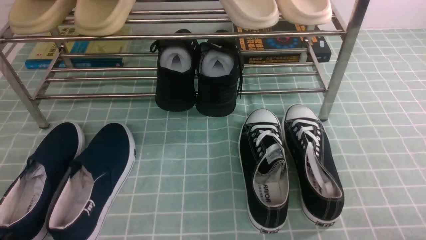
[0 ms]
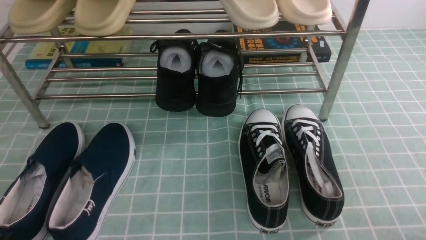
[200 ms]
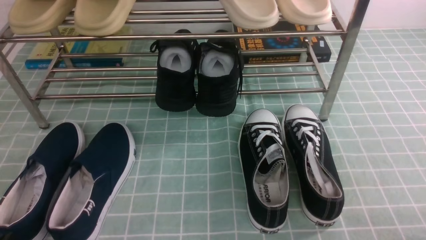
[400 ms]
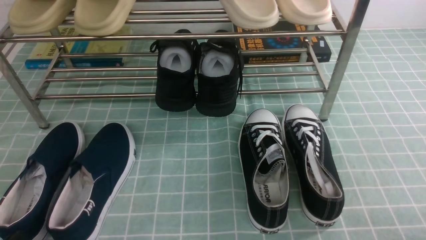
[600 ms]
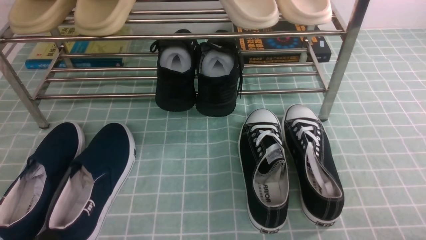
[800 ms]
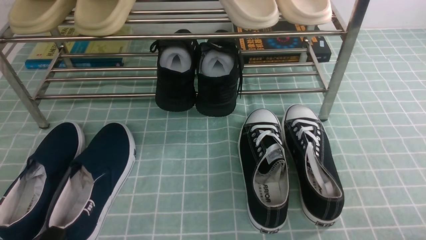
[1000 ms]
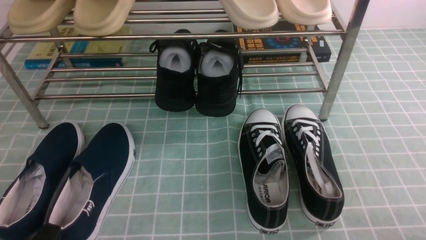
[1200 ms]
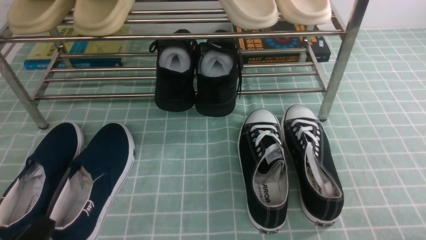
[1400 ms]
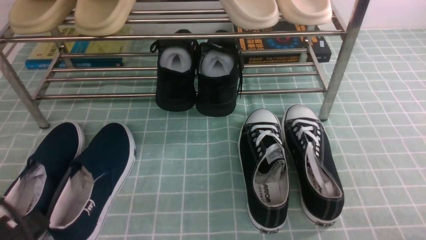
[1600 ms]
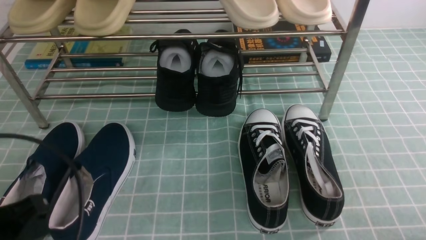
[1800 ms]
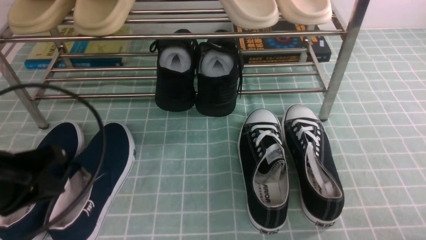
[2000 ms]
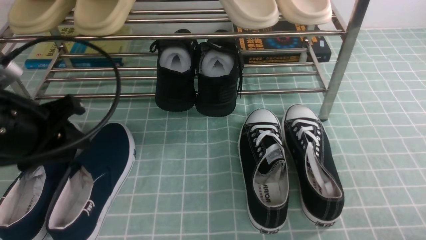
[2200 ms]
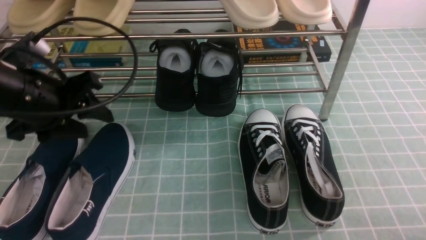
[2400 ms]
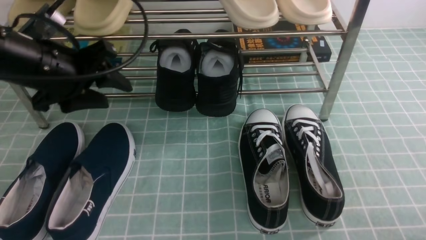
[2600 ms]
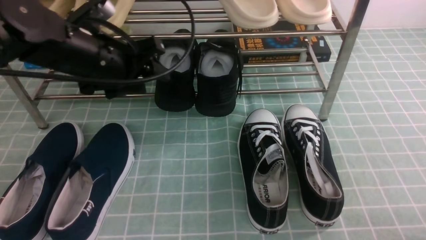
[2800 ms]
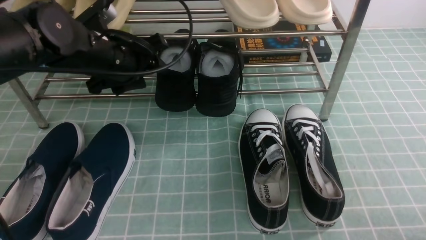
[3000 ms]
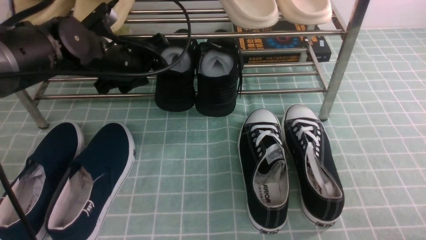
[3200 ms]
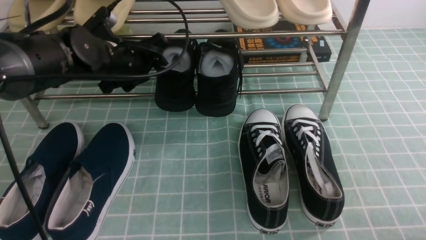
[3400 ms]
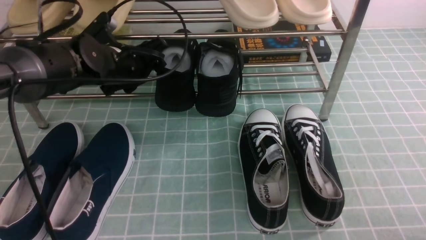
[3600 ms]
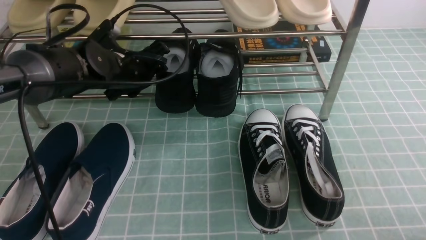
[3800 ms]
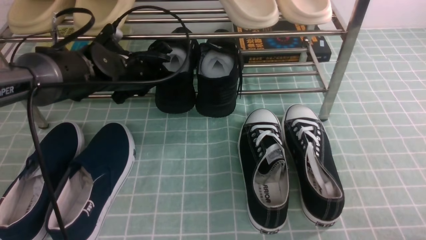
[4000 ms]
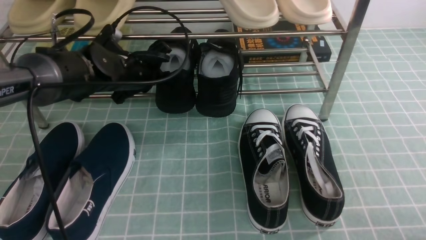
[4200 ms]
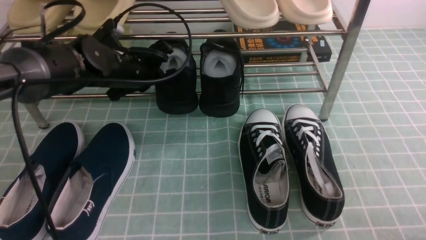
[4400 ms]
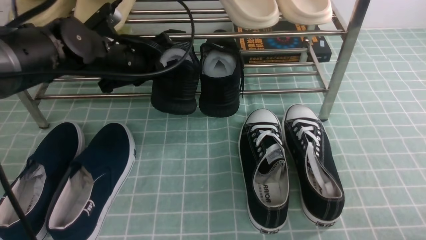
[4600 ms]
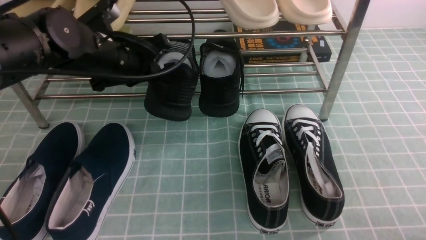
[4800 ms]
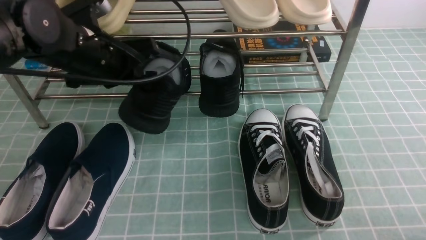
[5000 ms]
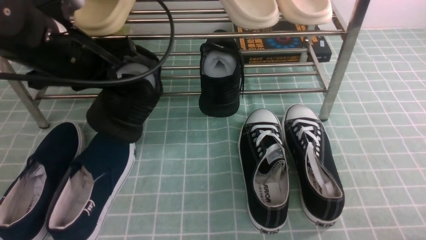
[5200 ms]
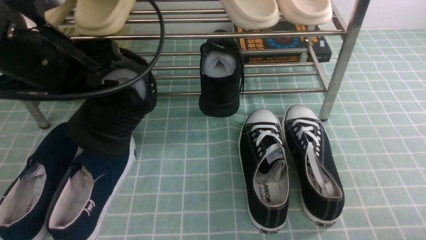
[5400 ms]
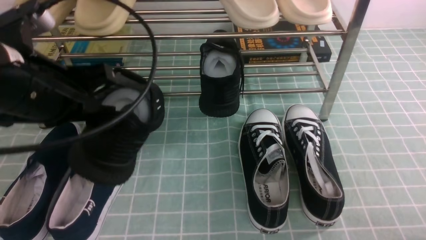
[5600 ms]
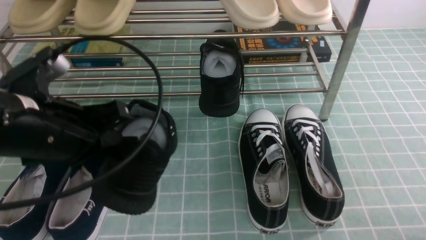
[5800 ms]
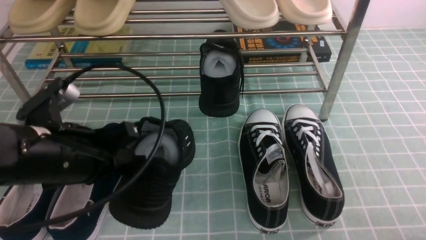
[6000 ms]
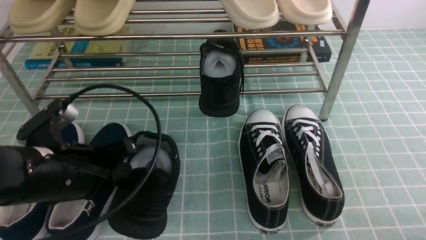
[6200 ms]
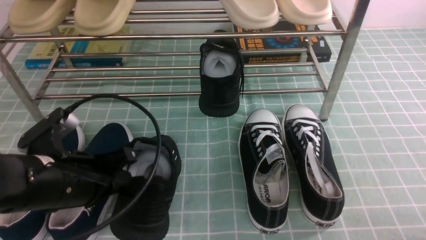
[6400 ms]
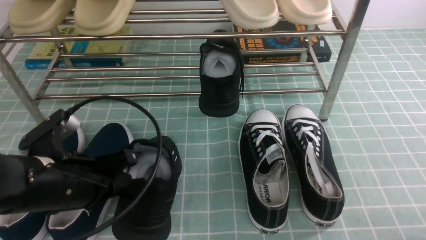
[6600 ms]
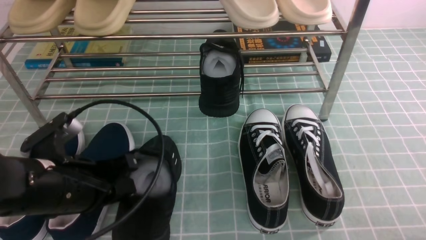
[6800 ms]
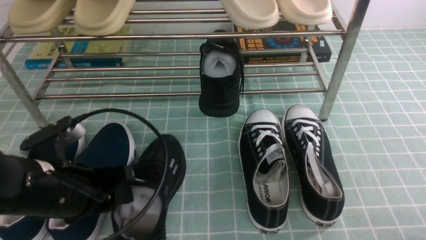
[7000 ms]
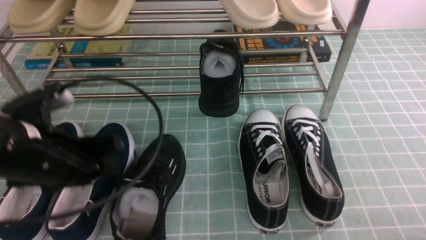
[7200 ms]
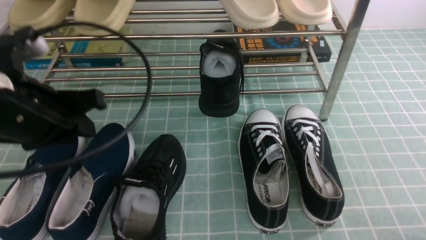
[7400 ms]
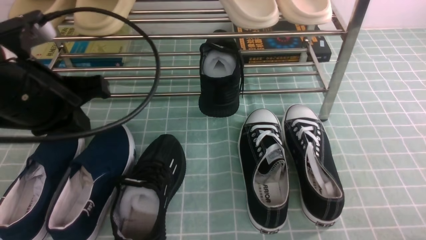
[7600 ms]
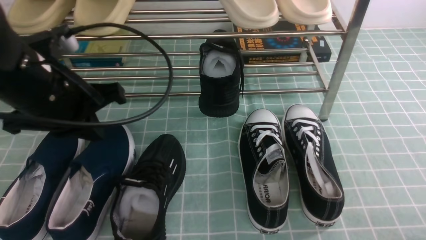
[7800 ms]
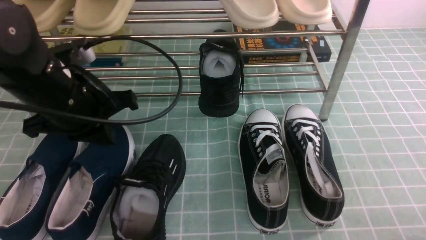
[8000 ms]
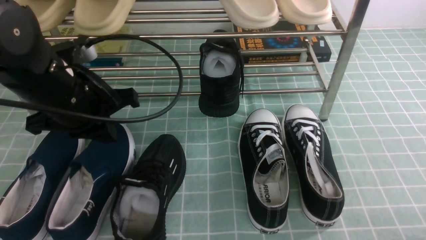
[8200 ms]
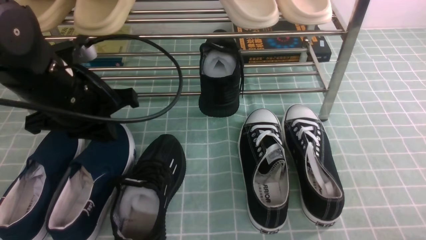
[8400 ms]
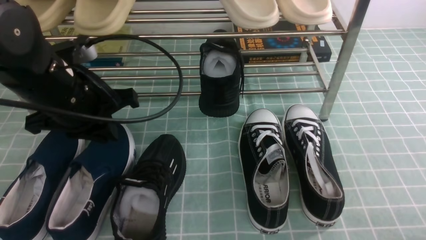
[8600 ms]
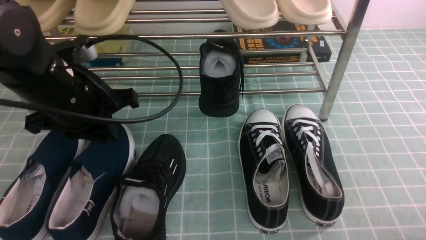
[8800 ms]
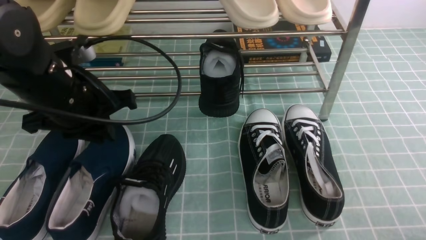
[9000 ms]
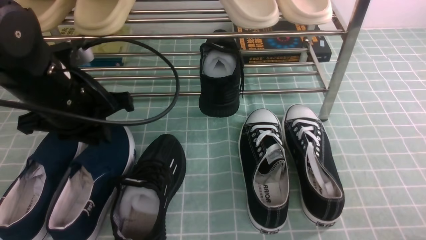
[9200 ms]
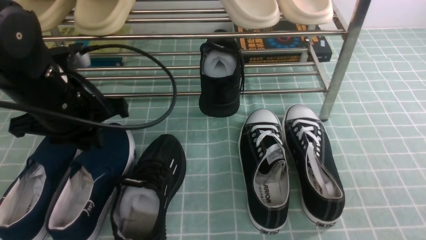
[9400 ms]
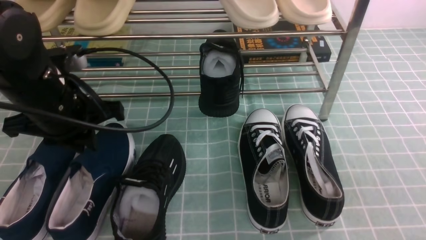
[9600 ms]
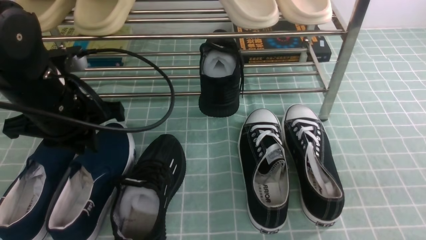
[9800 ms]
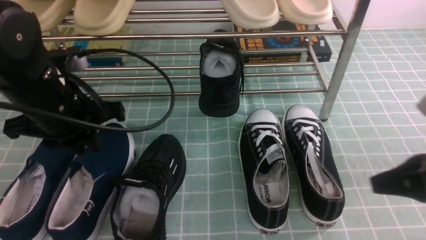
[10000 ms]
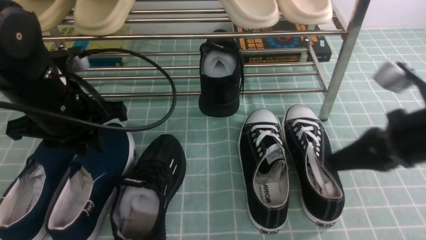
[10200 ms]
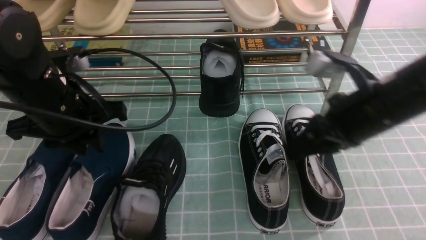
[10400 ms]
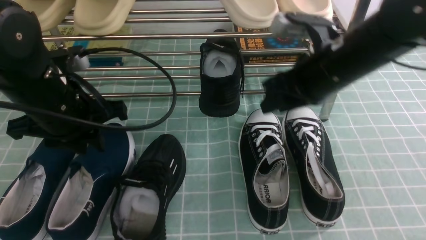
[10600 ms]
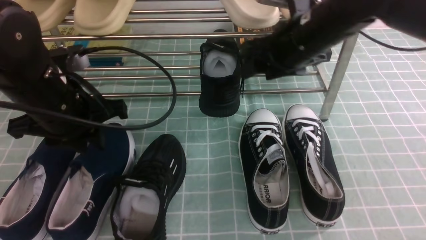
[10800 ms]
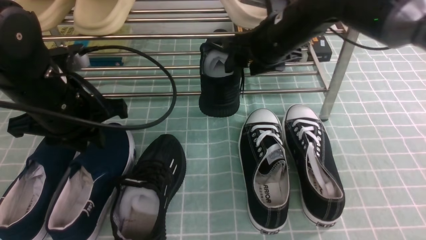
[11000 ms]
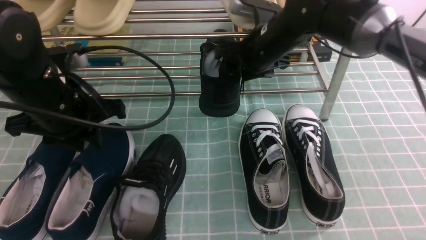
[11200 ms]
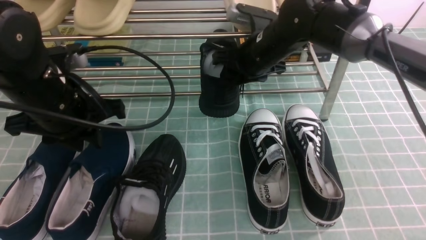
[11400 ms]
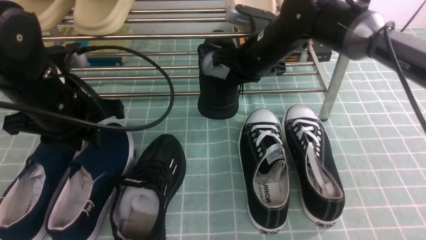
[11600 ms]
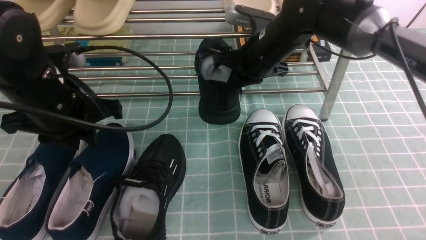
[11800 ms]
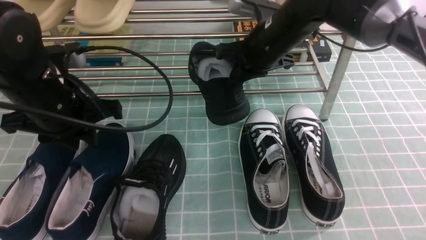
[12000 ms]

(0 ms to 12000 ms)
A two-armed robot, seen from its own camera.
Step, 0 ms - 4200 ms: use the left arm to clamp a shoe in the middle of the shoe rack.
Step, 4400 ms - 7200 ms: Use your left arm to remove the clamped shoe from the shoe rack and put it down.
Step, 7400 ms - 11600 ms: use the right arm to clamp a shoe in the middle of the shoe rack.
0 ms - 1600 ms: The left gripper is displaced upward by roughly 10 cm.
1600 ms - 3000 ms: The left gripper travels forward by approximately 30 cm, and opens up.
3000 ms - 4400 ms: The left gripper closes its fingers.
4400 ms - 6000 ms: The left gripper shifts about 20 cm backward.
6000 ms - 7600 ms: The left gripper goes some 5 cm upward, and opens and closes again.
7600 ms - 9000 ms: The left gripper shifts by some 5 cm.
9000 ms - 10400 ms: The right gripper goes approximately 30 cm forward, to the left and upward, and closes, then reopens.
10400 ms - 12000 ms: The right gripper travels forward and to the left by about 15 cm, and closes.

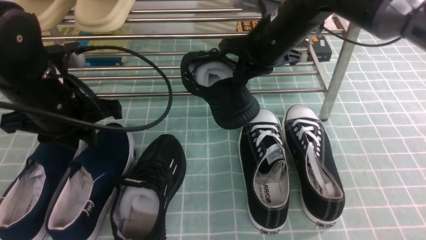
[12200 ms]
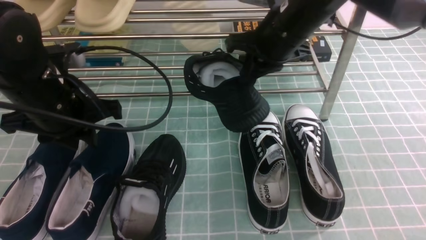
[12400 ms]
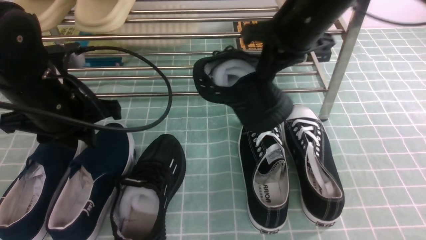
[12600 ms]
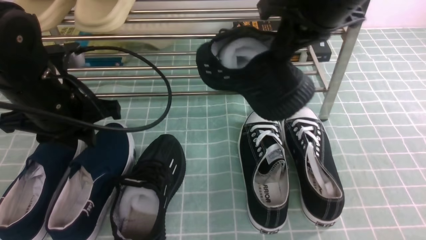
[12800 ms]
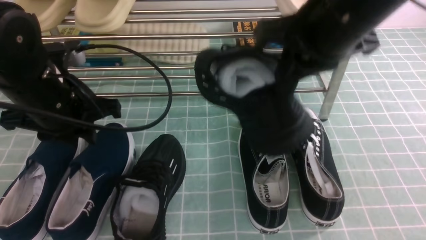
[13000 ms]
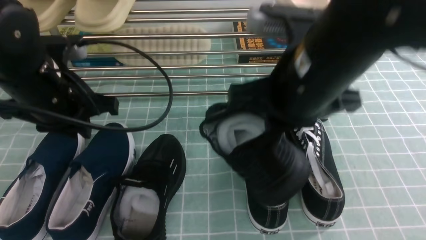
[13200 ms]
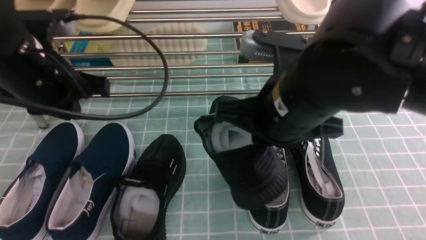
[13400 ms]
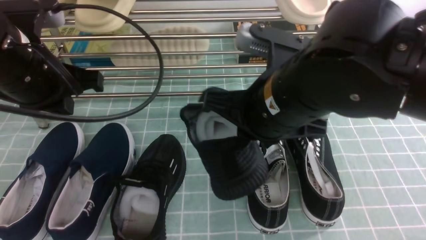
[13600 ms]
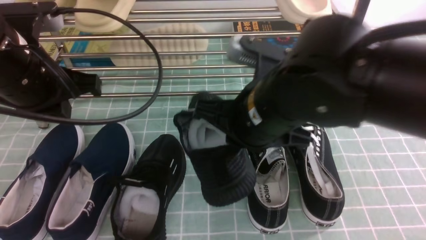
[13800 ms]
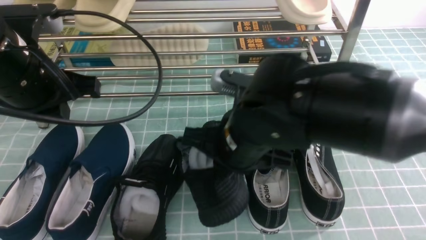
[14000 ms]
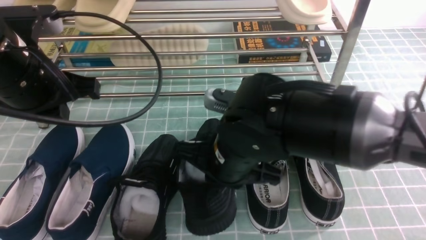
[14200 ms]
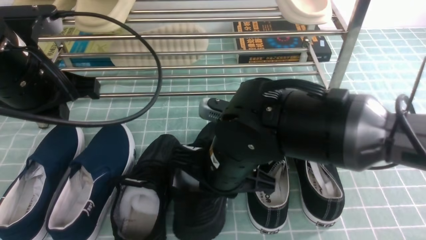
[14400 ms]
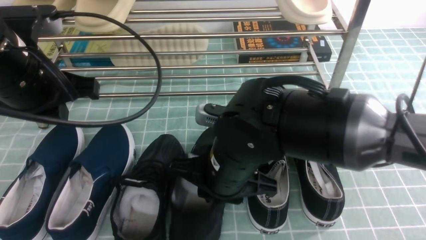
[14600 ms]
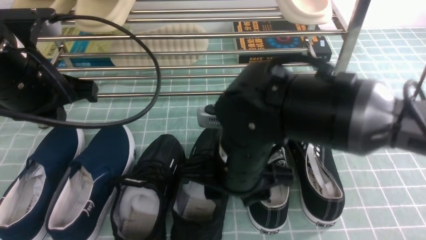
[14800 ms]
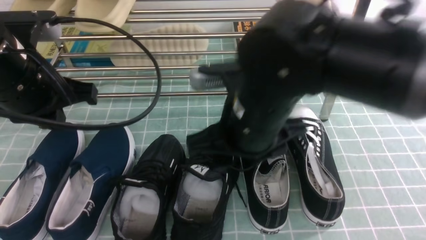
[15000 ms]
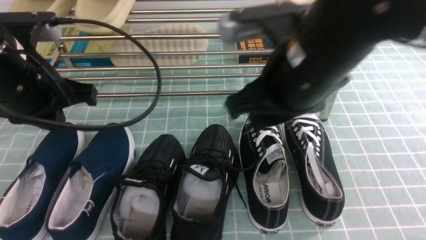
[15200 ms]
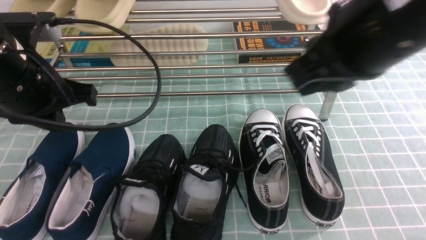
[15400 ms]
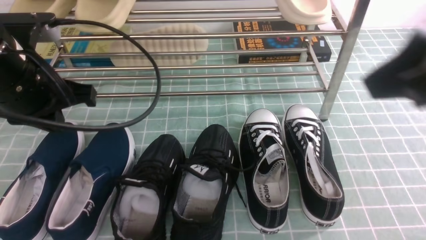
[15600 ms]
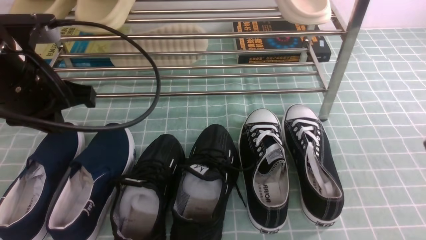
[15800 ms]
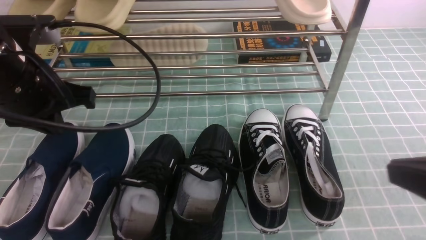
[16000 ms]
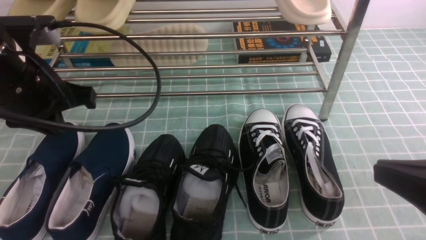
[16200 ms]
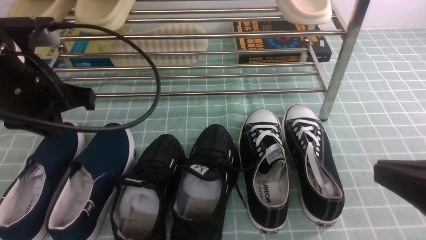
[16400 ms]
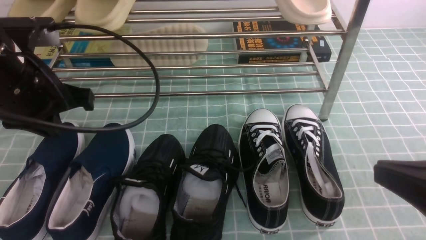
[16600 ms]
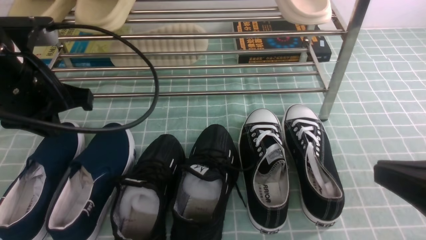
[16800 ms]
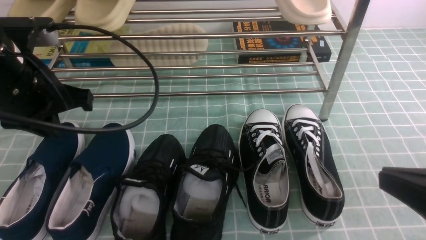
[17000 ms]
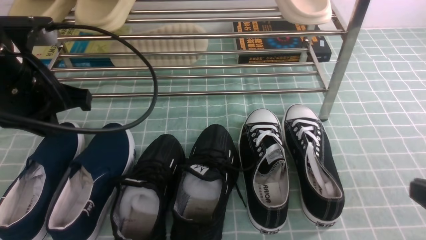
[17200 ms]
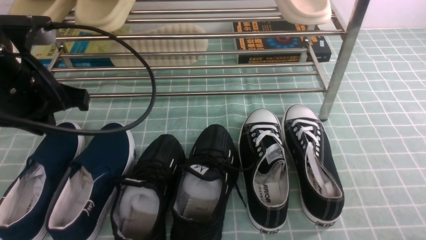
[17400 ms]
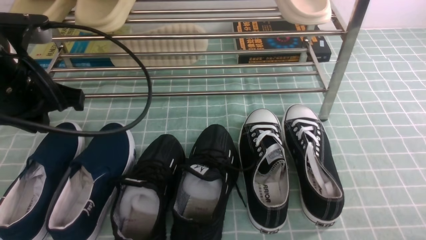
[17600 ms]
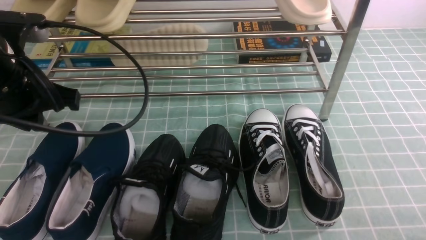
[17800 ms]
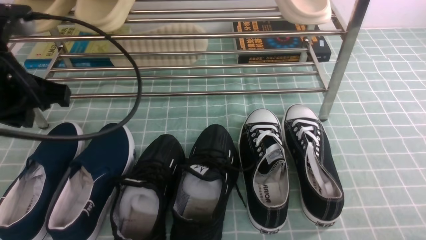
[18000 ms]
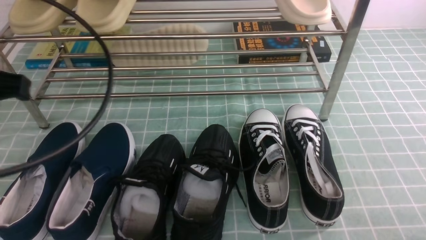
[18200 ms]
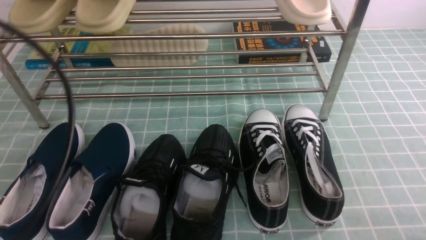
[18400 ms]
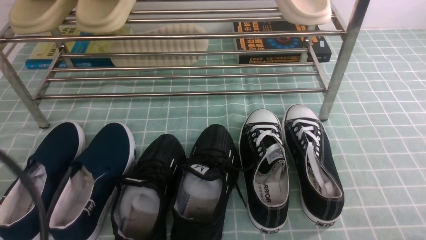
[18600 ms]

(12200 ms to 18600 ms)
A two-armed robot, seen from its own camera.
Step, 12200 ms - 14800 ms: use the right arm to take out the clamped shoe from the shoe rack and put it down.
12200 ms - 13800 ms: The right gripper is displaced backward by approximately 15 cm; the left gripper is displaced upward by about 5 cm, and closes its fingers.
13800 ms - 15400 ms: The right gripper goes roughly 15 cm upward and to the right, and opens, then closes again.
15400 ms - 17000 ms: The right gripper travels downward, to the right and backward by roughly 20 cm.
17000 ms - 18600 ms: The left gripper travels backward by roughly 20 cm. The right gripper shifts approximately 15 cm downward and to the right.
